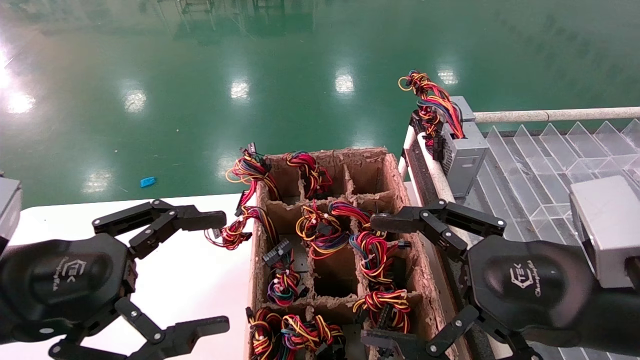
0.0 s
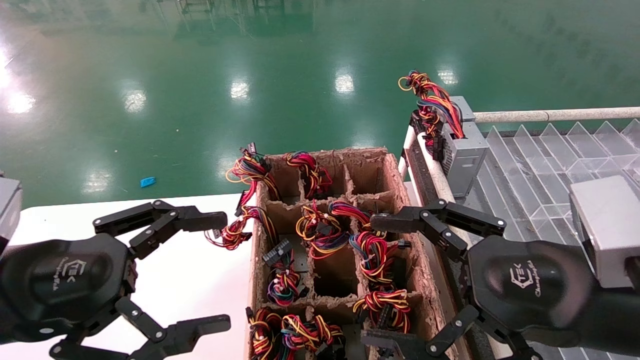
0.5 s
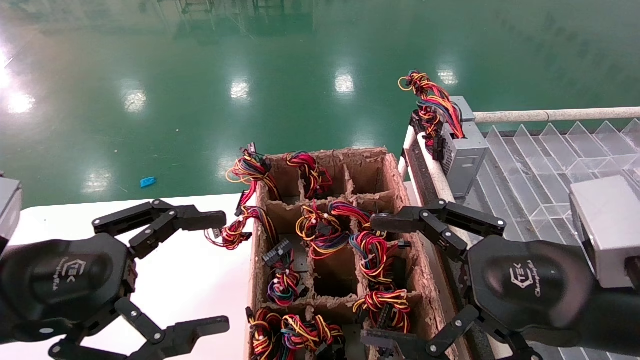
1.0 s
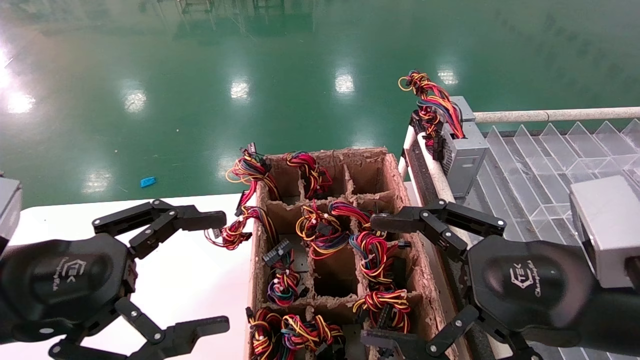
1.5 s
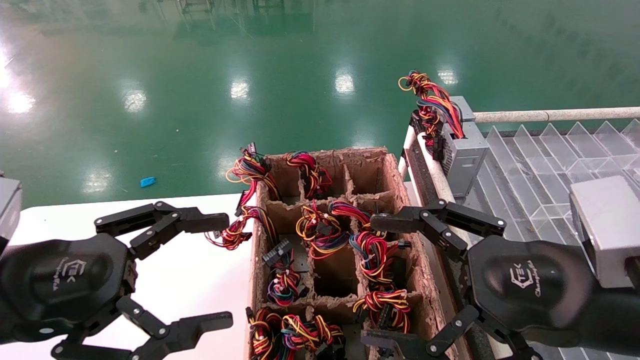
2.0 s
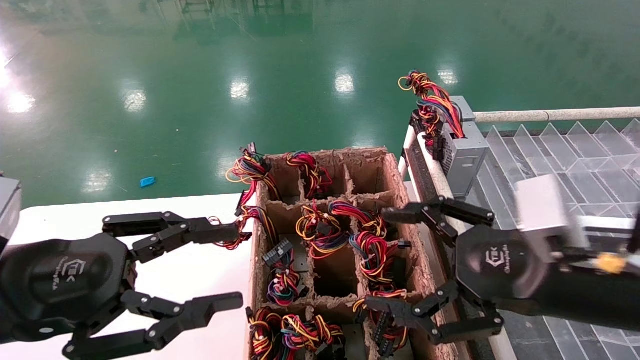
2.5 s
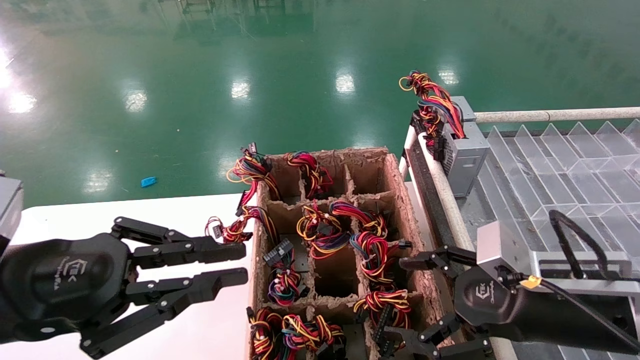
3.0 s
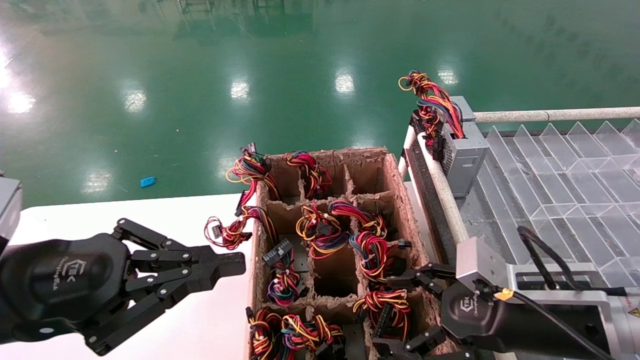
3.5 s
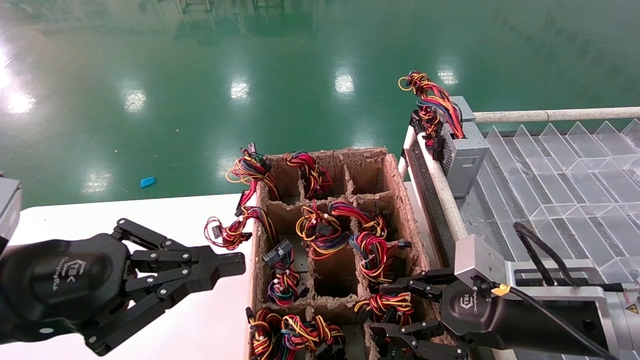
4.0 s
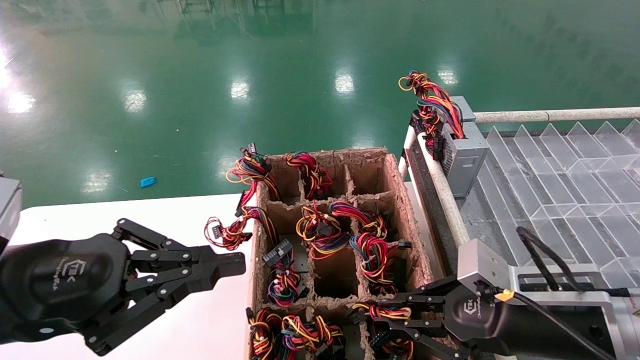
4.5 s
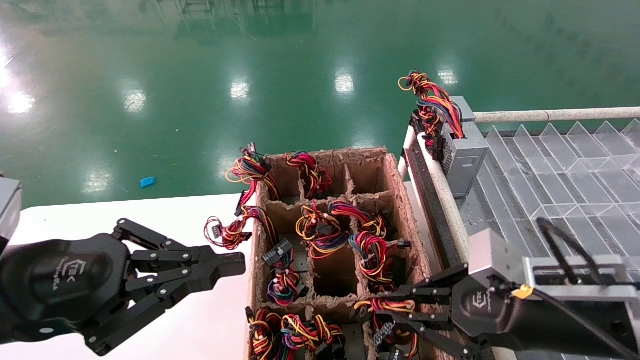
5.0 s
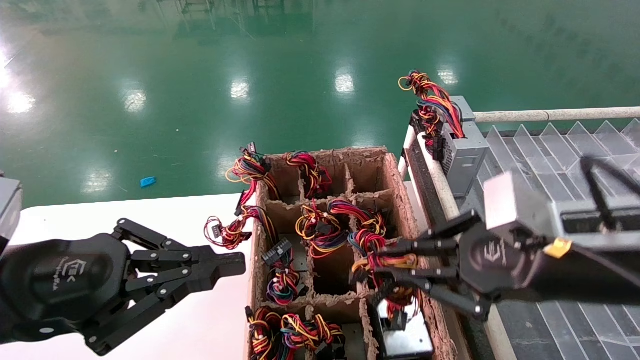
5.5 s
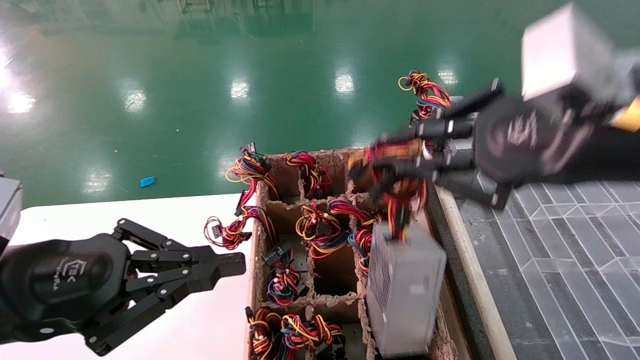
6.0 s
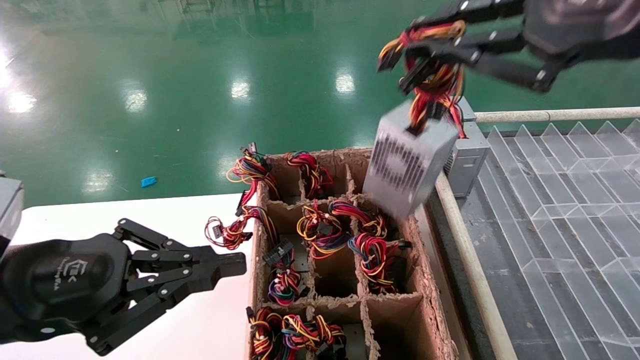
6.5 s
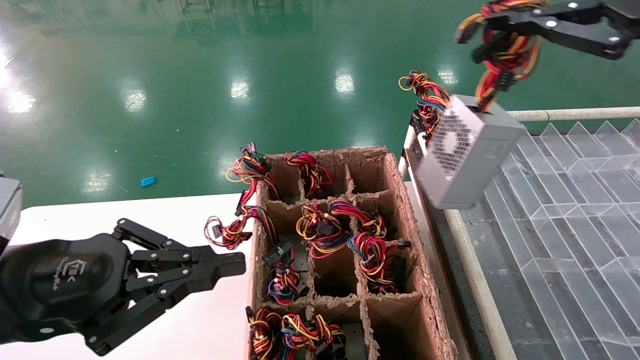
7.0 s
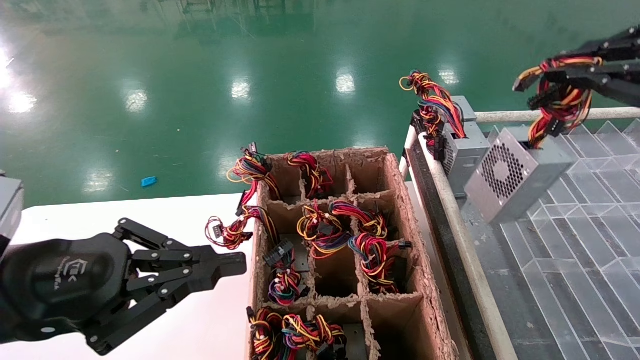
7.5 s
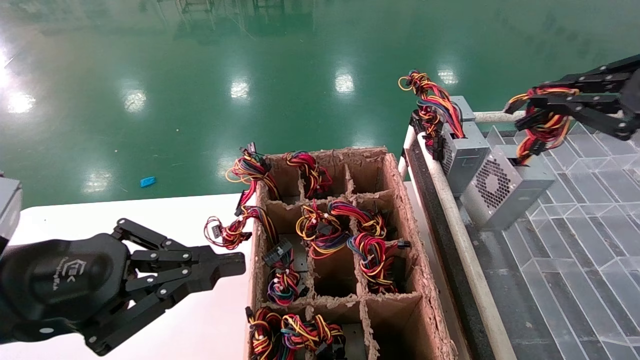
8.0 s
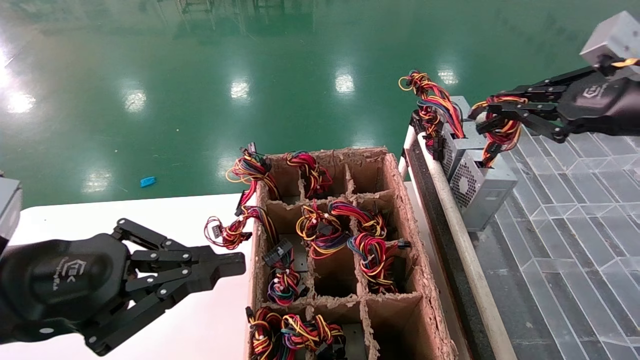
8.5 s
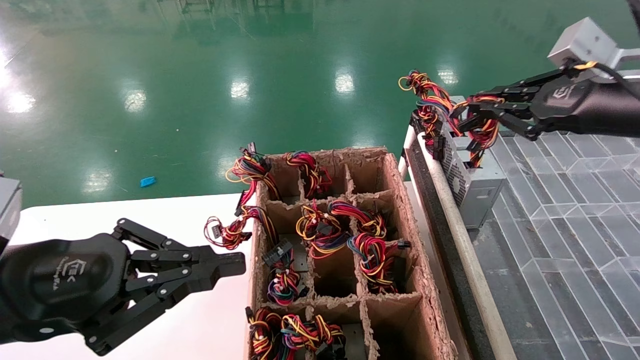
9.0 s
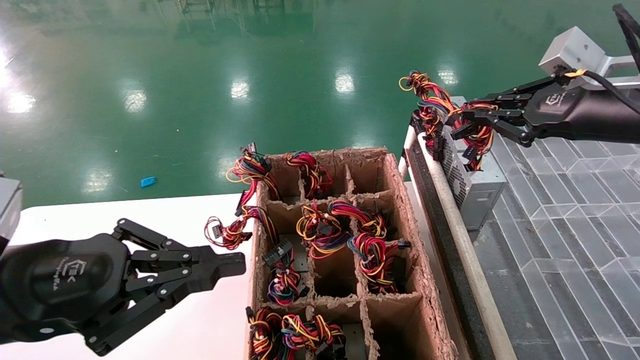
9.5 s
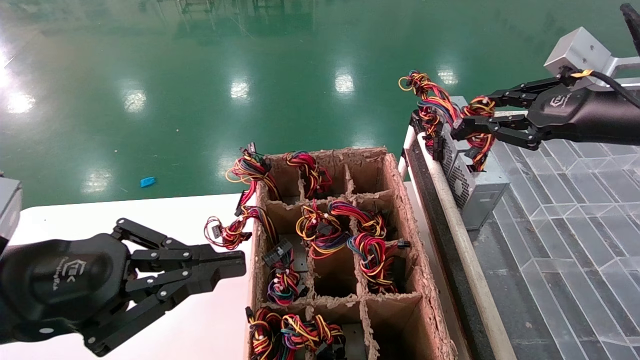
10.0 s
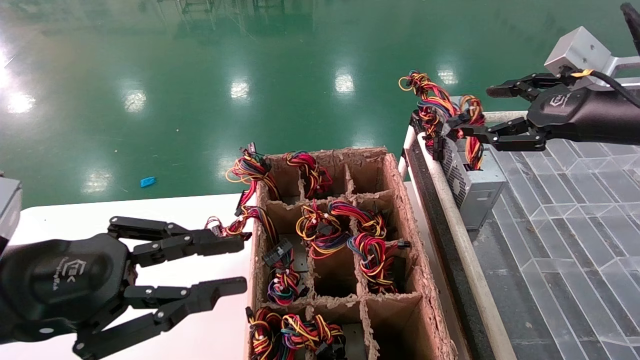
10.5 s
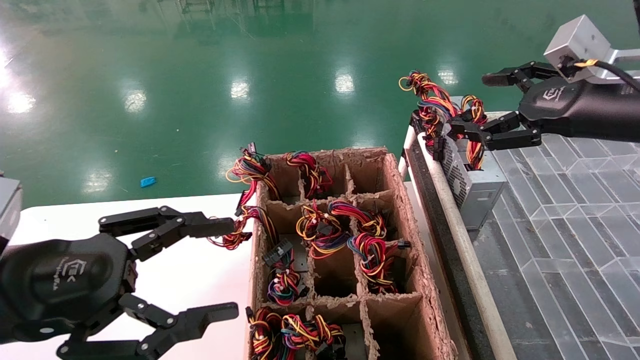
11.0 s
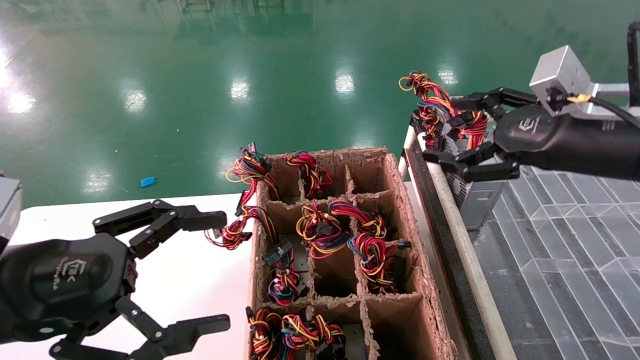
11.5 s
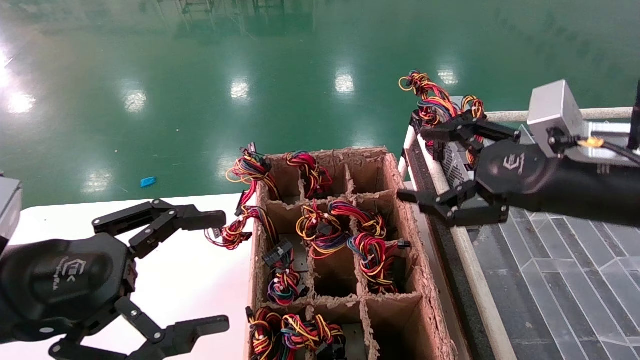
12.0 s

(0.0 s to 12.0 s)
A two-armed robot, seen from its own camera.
Step, 2.5 s - 4.5 s: Grab the main unit power supply from the containment box.
Step, 5.0 s - 10.5 s: Place the main unit power supply in the designated area.
0.0 s - 2.0 s: The two grippers keep their place.
2.0 s - 4.0 s: The right gripper goes about 10 cm downward and forward, and closes its fingers. Meanwhile the left gripper closes.
4.0 s - 6.0 s: The right gripper moves upward, approximately 20 cm, and closes.
6.0 s - 8.0 s: The right gripper moves to the right, approximately 15 cm.
8.0 s - 10.0 s: The right gripper goes some 10 cm forward.
10.0 s - 12.0 s: The right gripper shifts about 10 cm to the left, downward and backward, and opens up; the left gripper opens up.

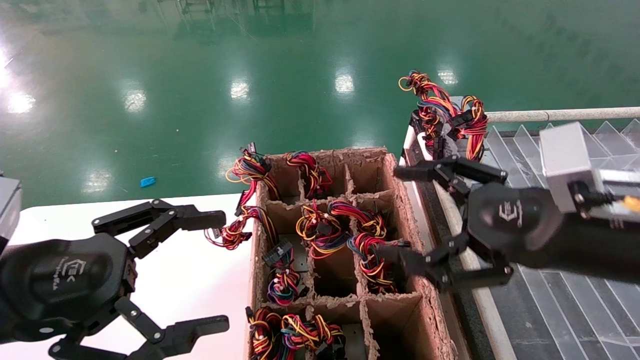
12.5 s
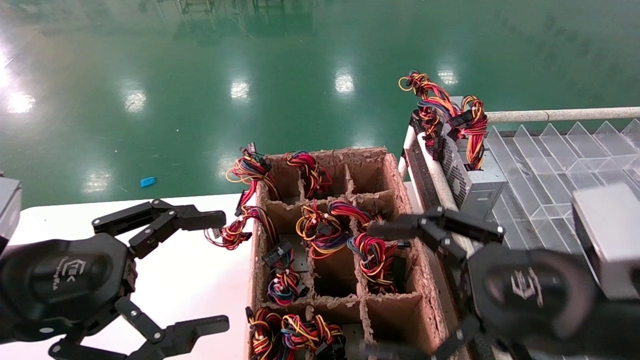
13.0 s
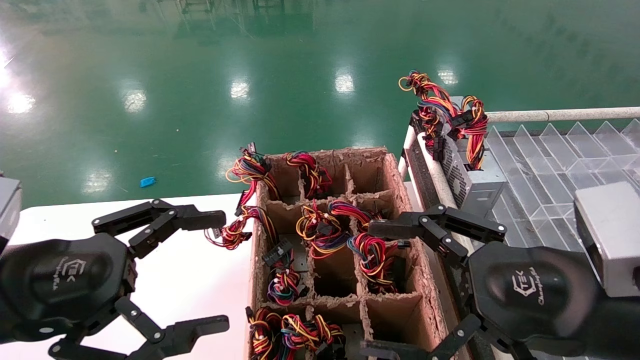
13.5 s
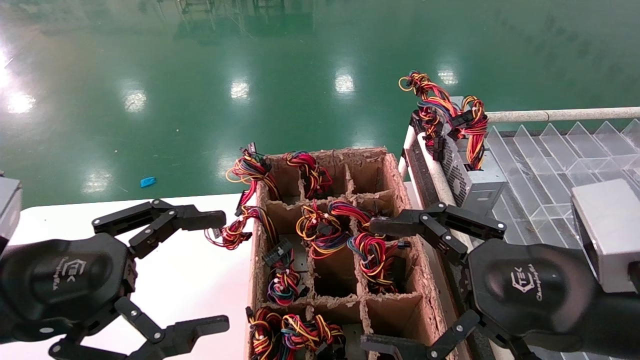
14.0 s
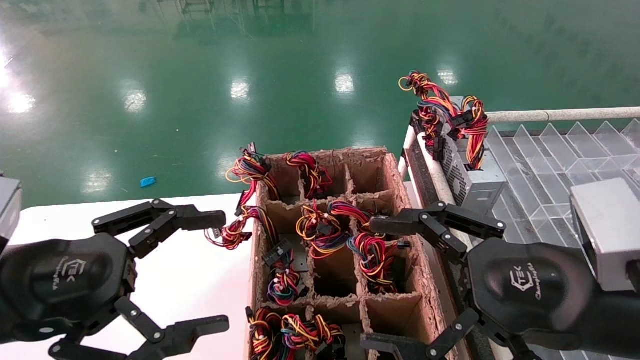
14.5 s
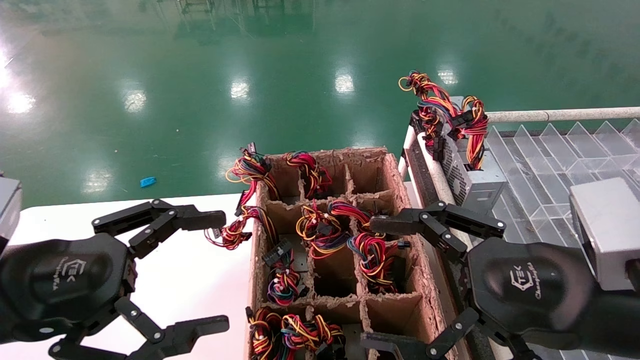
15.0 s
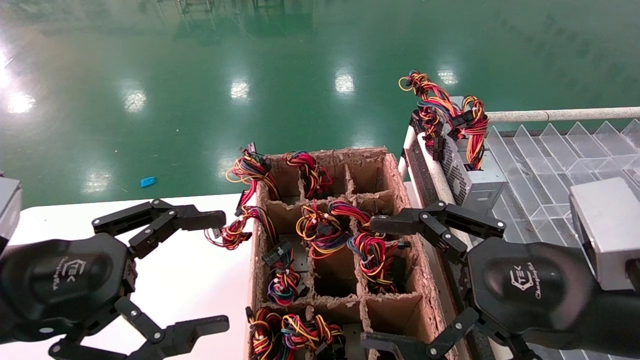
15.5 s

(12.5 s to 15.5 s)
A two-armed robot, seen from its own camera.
12.5 s - 14.0 s: The right gripper moves about 5 cm.
14.0 s - 15.5 s: Both grippers stay put.
